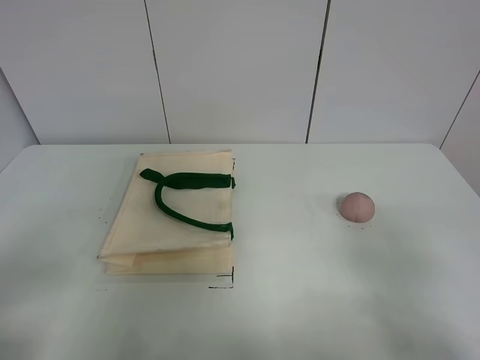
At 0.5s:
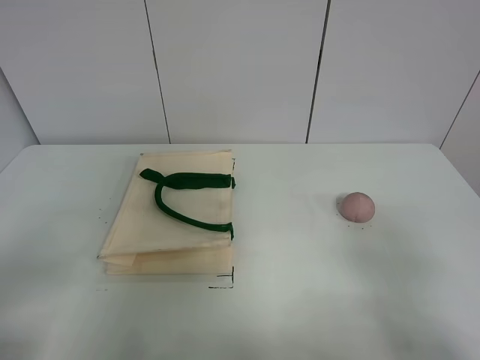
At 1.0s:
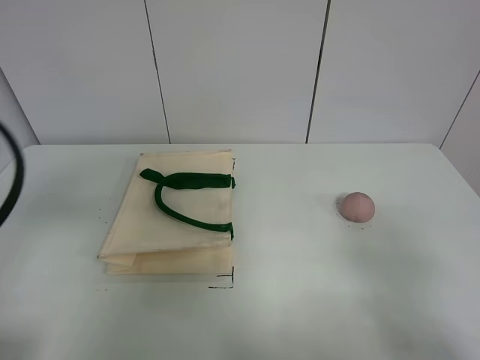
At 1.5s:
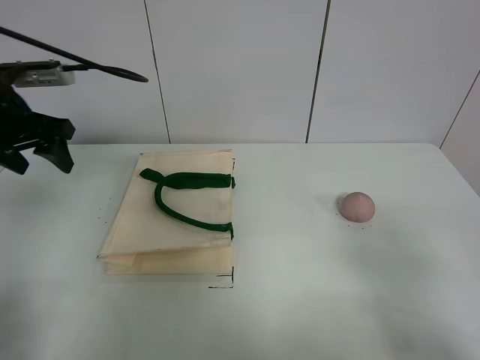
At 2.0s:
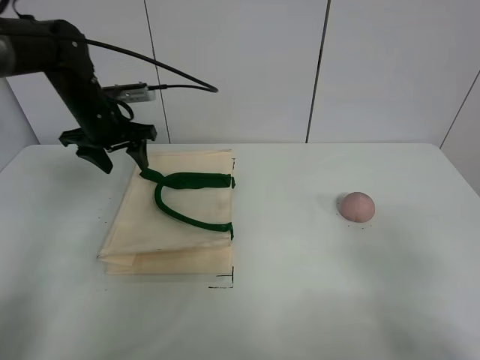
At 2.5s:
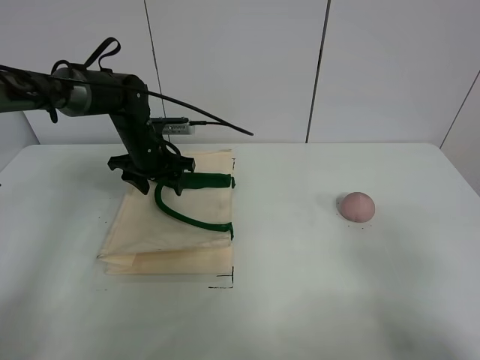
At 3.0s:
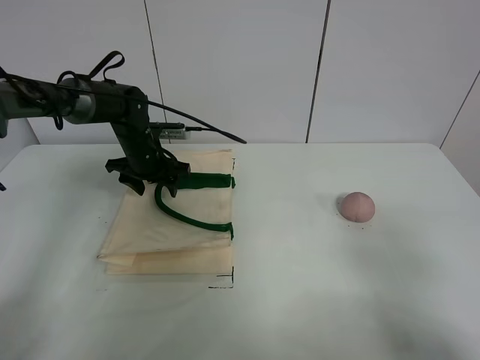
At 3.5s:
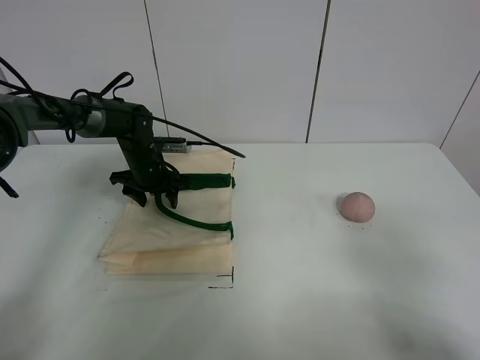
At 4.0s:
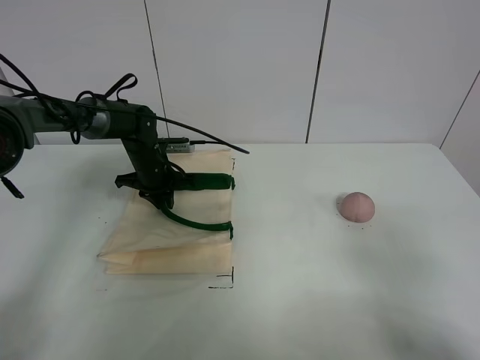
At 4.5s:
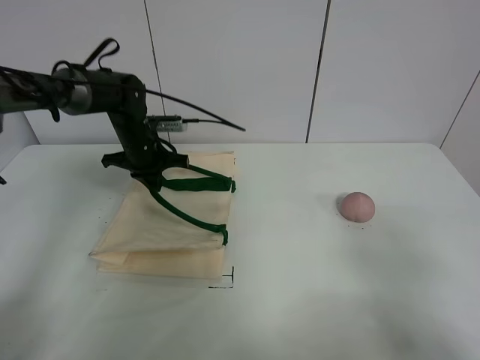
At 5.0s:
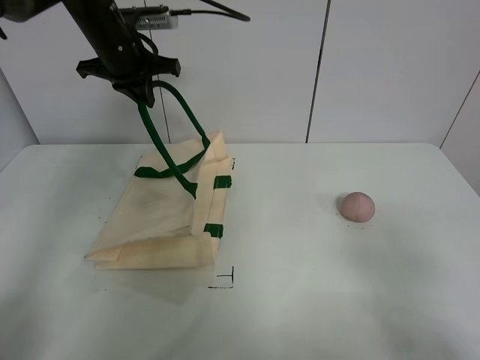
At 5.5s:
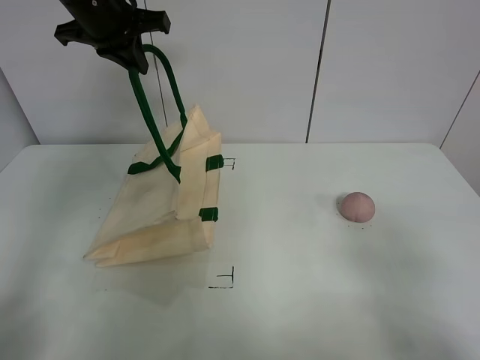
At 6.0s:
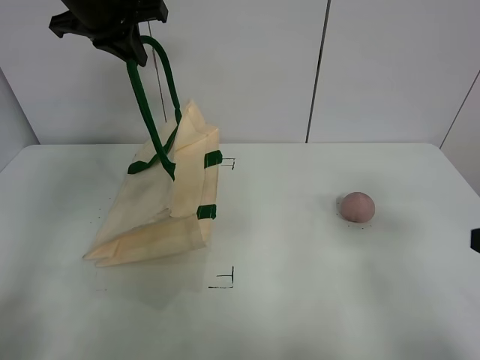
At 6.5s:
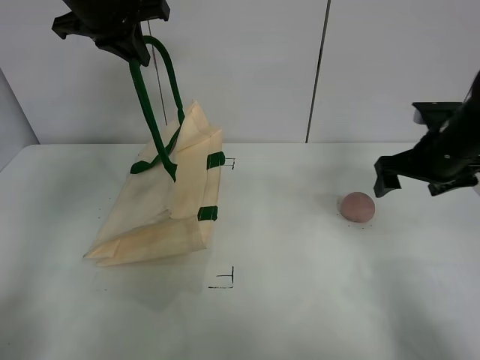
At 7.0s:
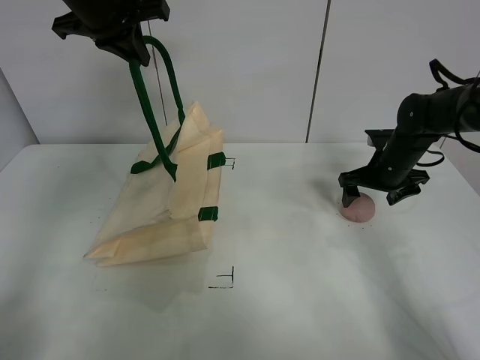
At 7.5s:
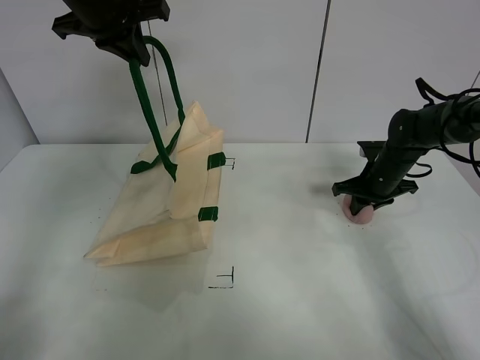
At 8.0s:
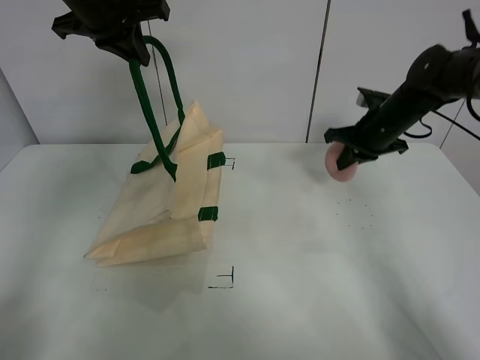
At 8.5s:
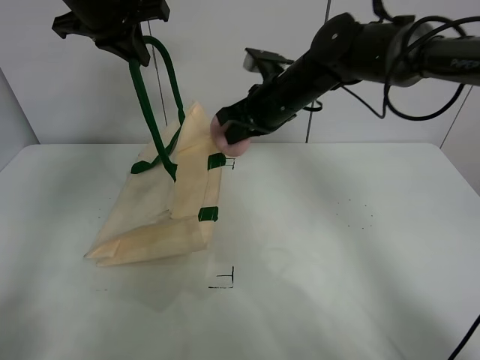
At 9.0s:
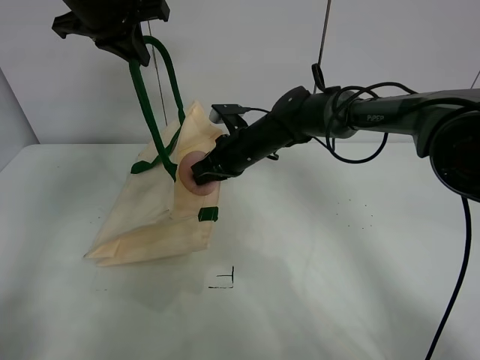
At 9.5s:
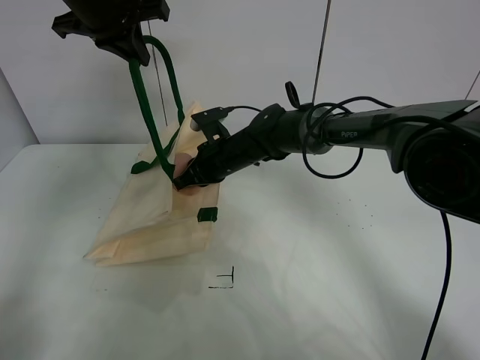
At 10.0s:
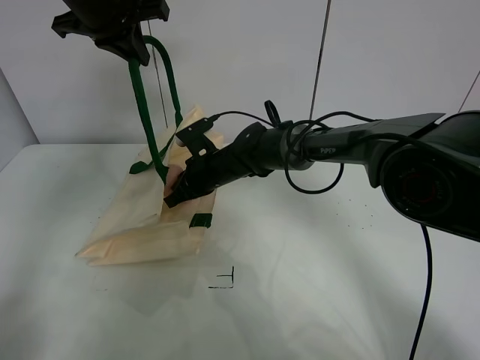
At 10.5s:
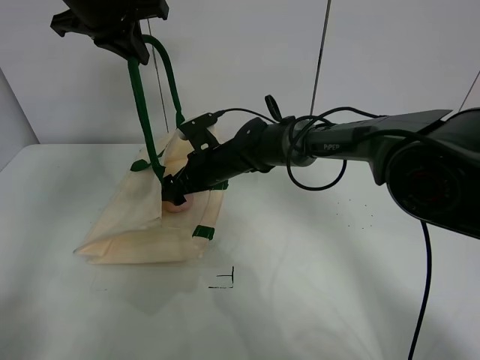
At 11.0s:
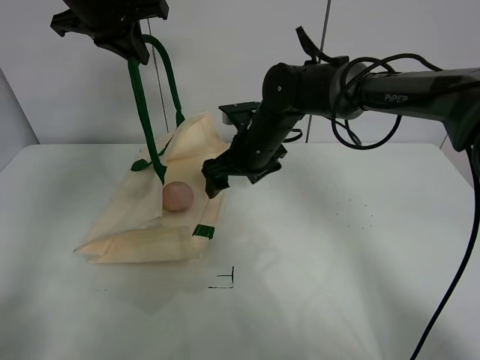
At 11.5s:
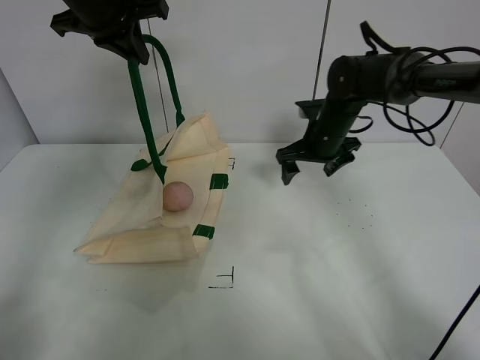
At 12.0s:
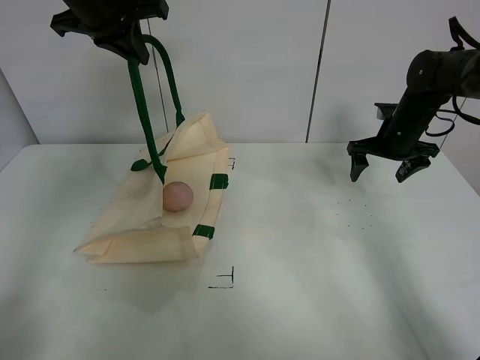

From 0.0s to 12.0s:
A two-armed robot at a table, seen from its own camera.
Task of the whole recording: open the white linen bag and put the peach in the bag.
Step, from 0.0s to 5.0s: Lift the handbag with left gripper.
Step, from 5.5s to 7.5s: Grasp the peach with right gripper.
Step, from 8.0s to 10.5s: Place the peach in the handbag with right gripper.
From 0.0s to 2.0s: The left gripper heads forward, covering about 40 cm.
From 2.0s to 4.0s: The left gripper travels downward by roughly 15 cm, and closes.
From 4.0s to 6.0s: The left gripper travels upward by about 30 cm. The right gripper moves forward, approximately 10 cm.
From 6.0s to 8.0s: The right gripper heads forward, covering some 30 cm, and closes.
From 8.0s to 10.0s: The right gripper is displaced to the left by some 25 cm.
From 10.0s to 12.0s: The right gripper travels to the right by some 30 cm, and opens its fingers.

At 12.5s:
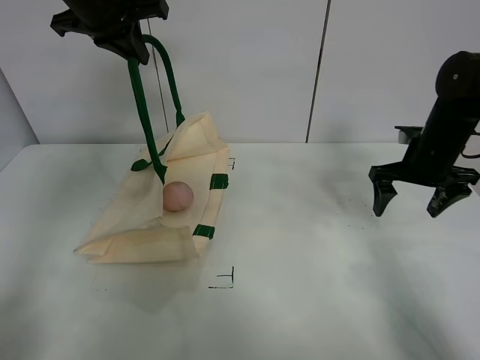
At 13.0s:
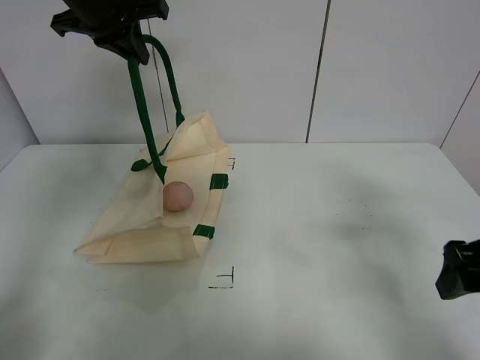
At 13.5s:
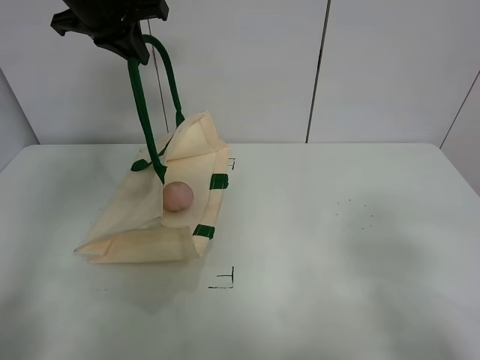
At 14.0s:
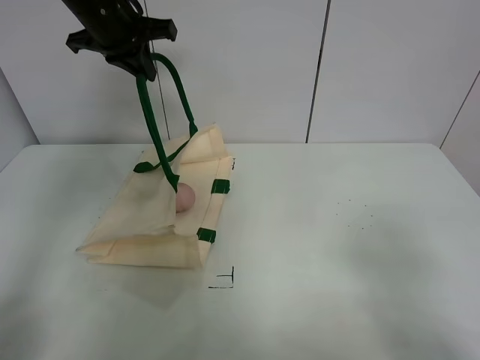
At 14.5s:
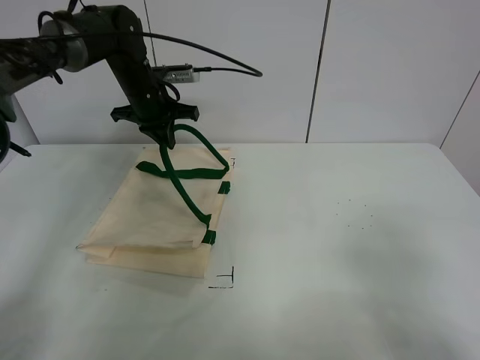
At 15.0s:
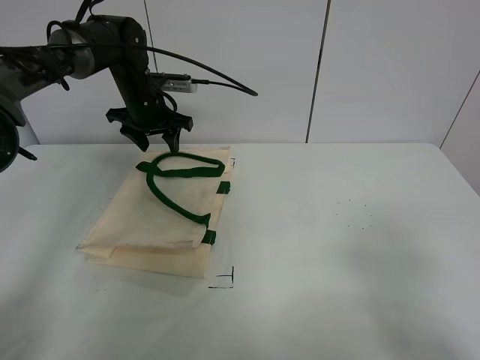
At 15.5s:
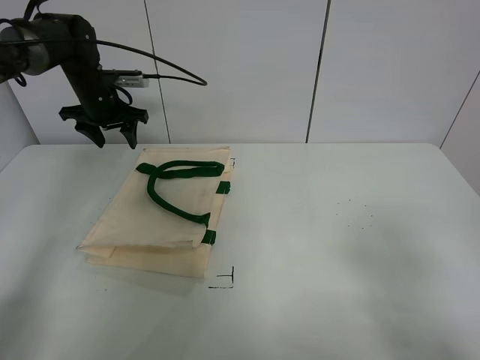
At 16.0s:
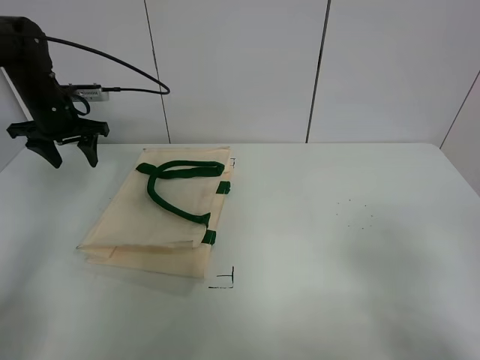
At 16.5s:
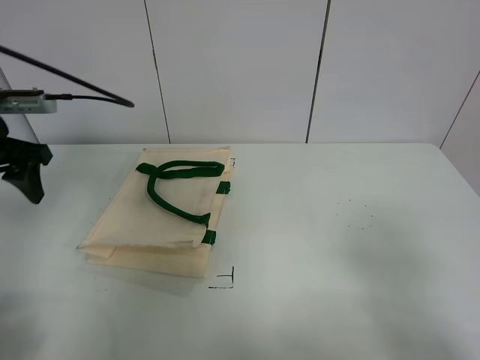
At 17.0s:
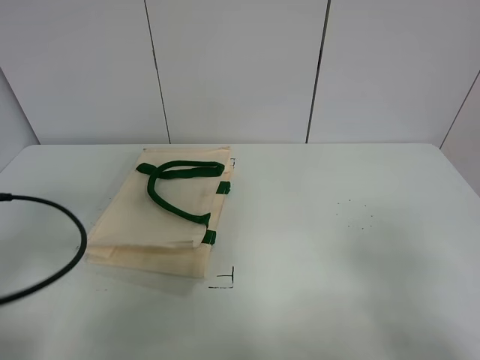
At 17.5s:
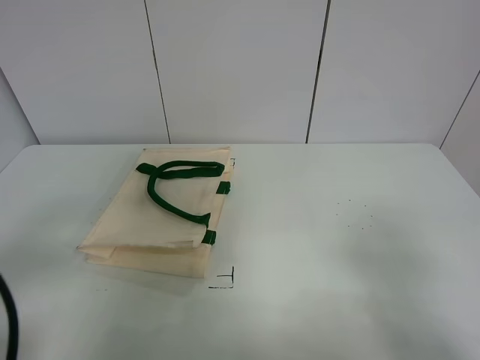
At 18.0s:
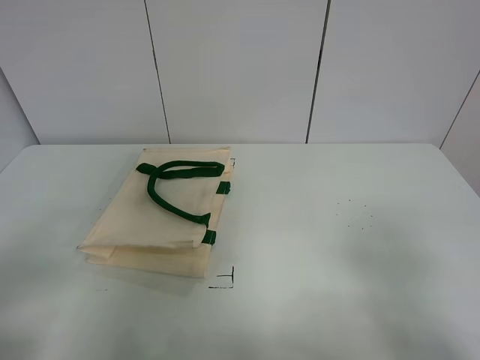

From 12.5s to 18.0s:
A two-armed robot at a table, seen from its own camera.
Task of the whole recording: open the white linen bag and put the peach in the bag.
Step, from 12.5s to 15.0s: Put down the handbag with left gripper.
From 12.5s to 14.5s: The left gripper heads downward and forward, covering roughly 20 cm; the right gripper shifts about 35 cm backward.
From 14.5s to 16.0s: The left gripper is displaced to the left by roughly 15 cm, and opens its fingers.
From 16.0s to 18.0s: The left gripper heads backward, covering approximately 40 cm.

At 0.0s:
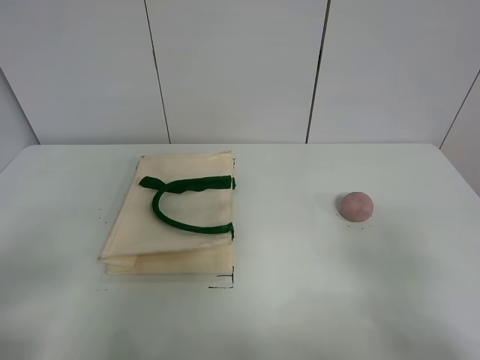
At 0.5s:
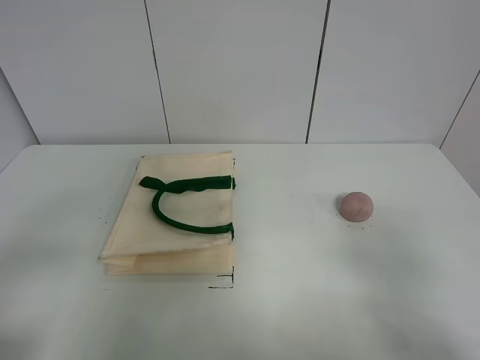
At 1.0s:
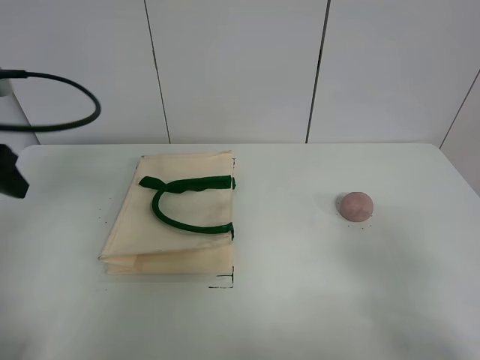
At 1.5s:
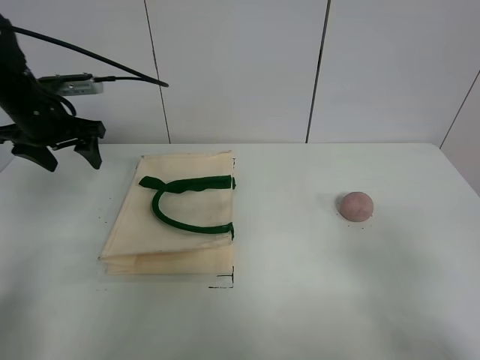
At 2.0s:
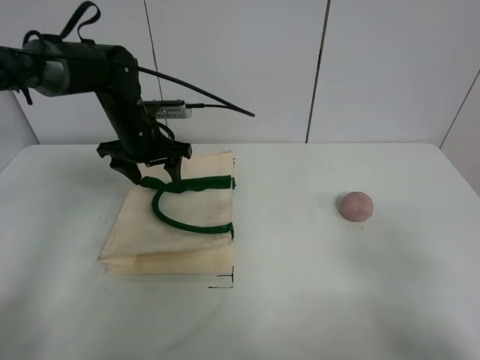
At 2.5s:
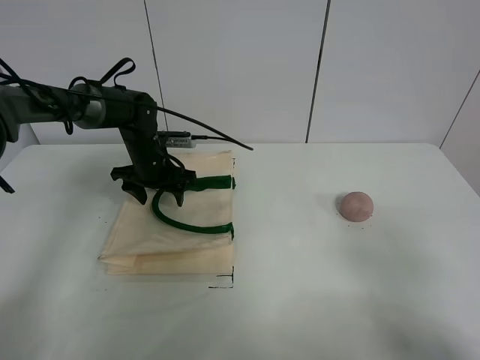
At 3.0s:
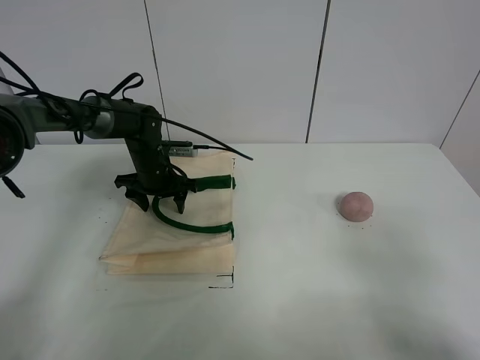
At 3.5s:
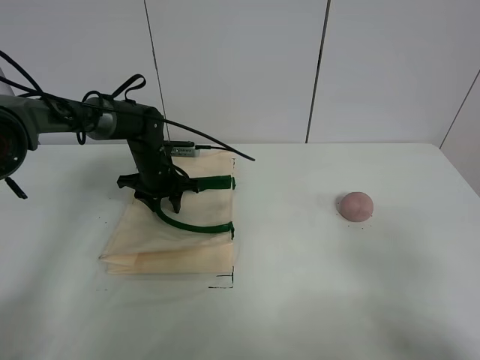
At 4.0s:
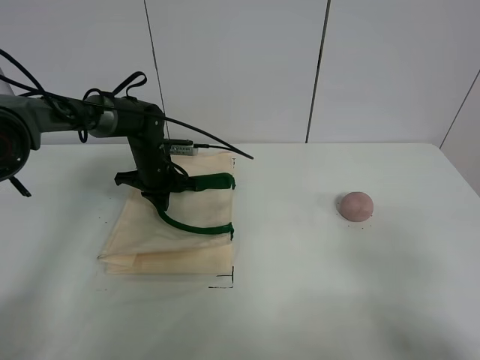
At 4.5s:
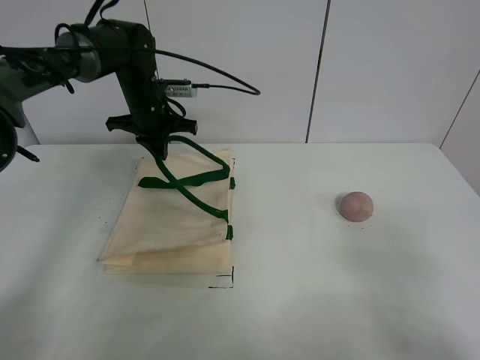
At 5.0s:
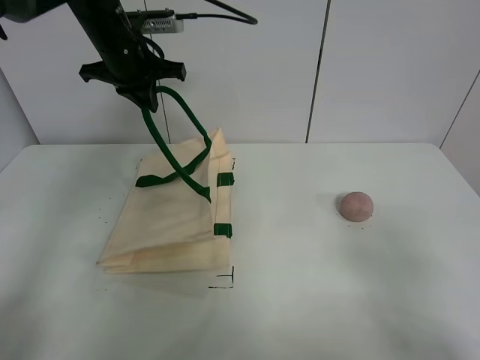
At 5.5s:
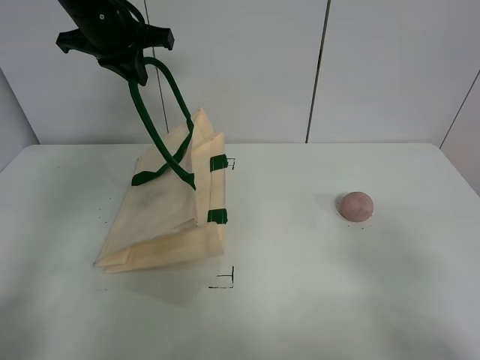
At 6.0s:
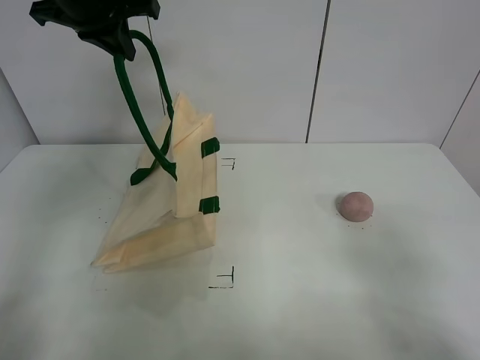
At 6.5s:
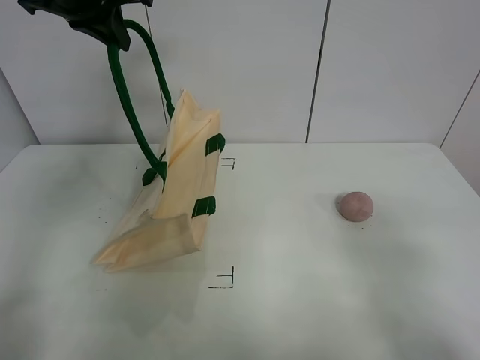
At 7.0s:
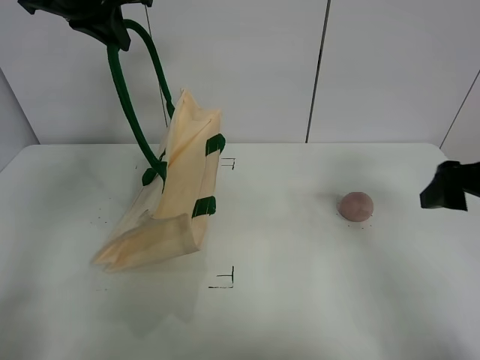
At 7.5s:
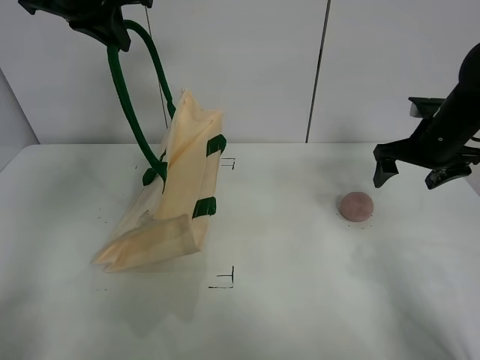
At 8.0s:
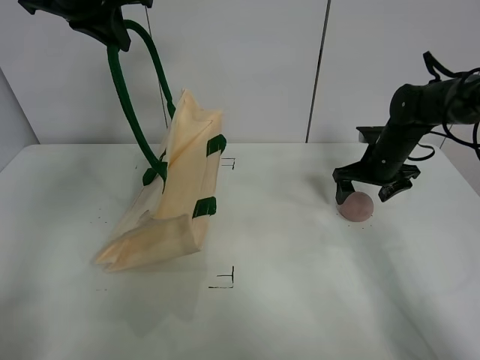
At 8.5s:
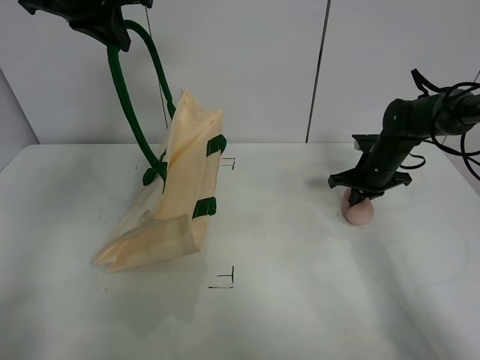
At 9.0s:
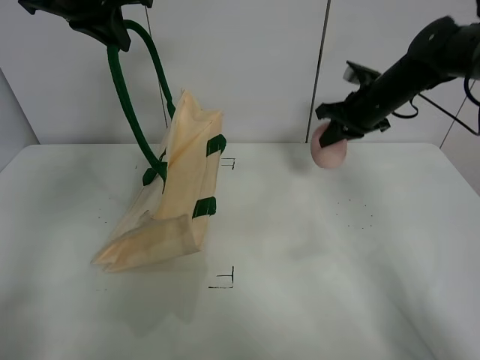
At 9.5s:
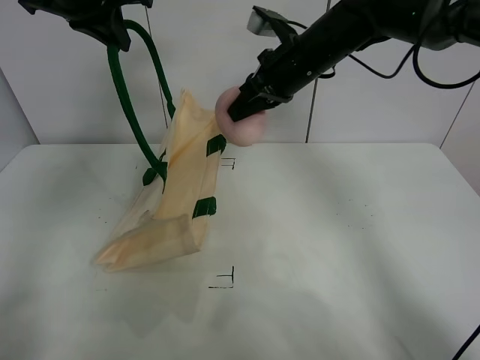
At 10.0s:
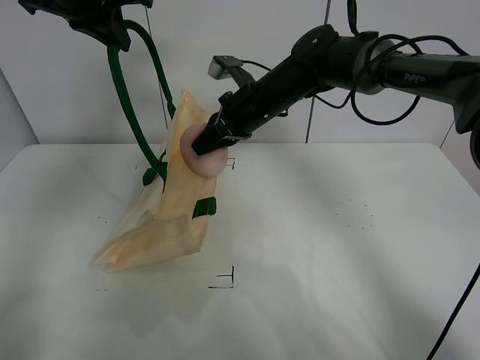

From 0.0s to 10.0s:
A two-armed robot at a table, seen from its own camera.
Task of the whole recording: open the white linen bag and put the peach in the bag.
Step, from 0.0s to 6.5s: Lift the handbag with left gripper.
Step, from 7.0s to 8.5s: Grasp the peach with right gripper.
From 2.0s to 4.0s: The left gripper moves downward, roughly 10 cm, and closes up.
From 4.0s to 6.0s: The left gripper goes roughly 30 cm upward.
From 6.0s to 8.0s: The right gripper shifts roughly 40 cm forward.
From 8.0s to 10.0s: The right gripper shifts some 25 cm to the left and upward, and closes its fingers.
